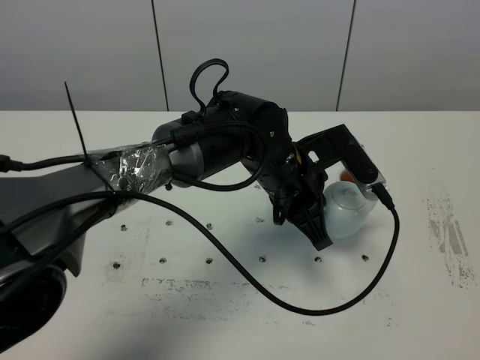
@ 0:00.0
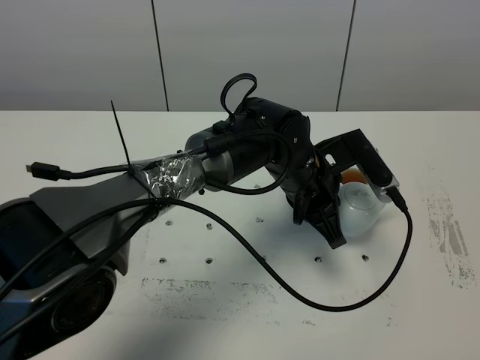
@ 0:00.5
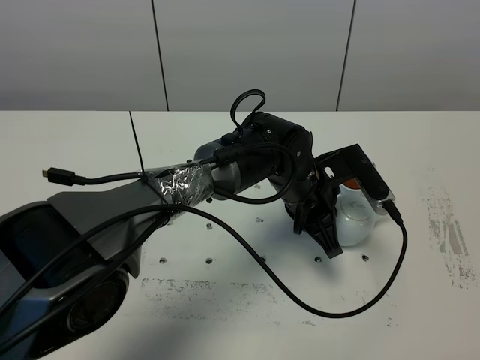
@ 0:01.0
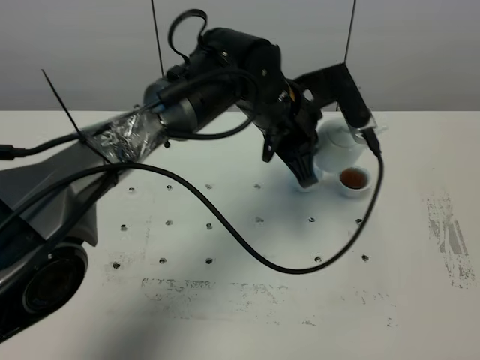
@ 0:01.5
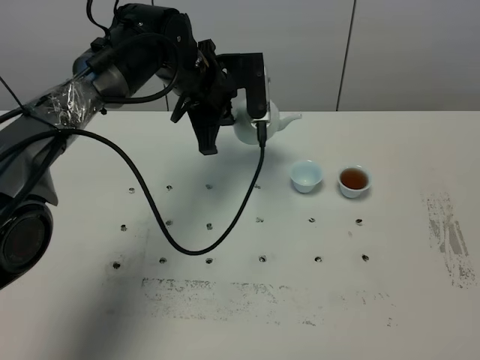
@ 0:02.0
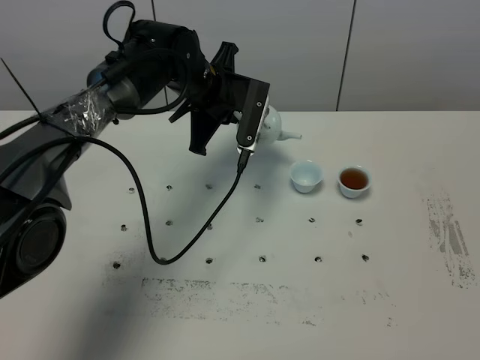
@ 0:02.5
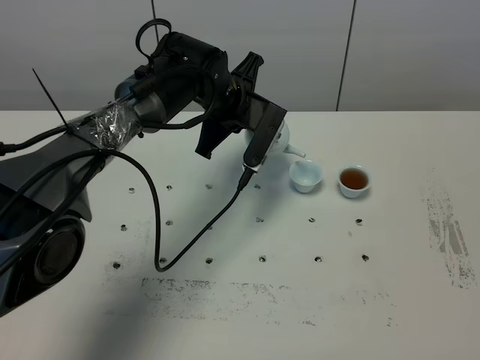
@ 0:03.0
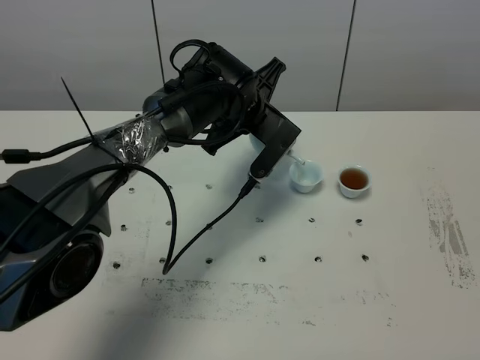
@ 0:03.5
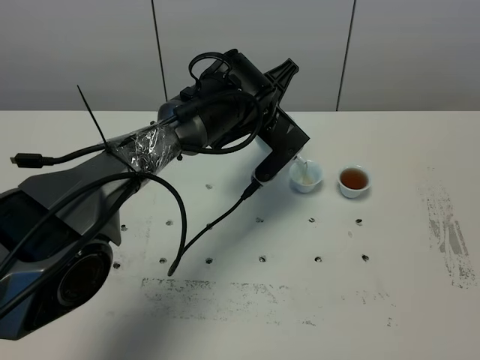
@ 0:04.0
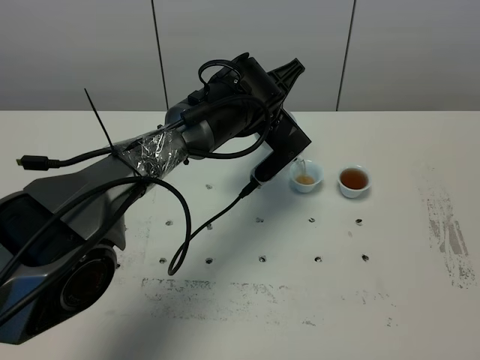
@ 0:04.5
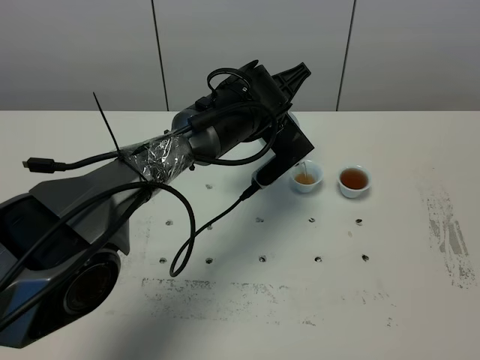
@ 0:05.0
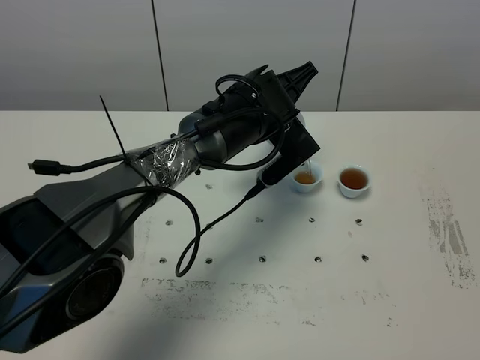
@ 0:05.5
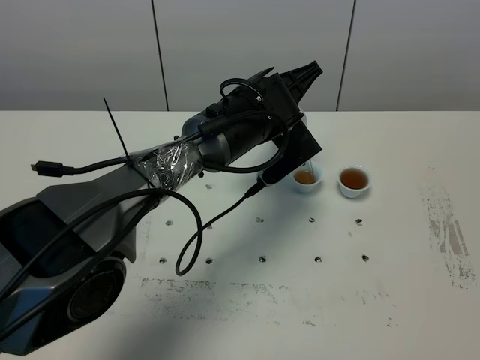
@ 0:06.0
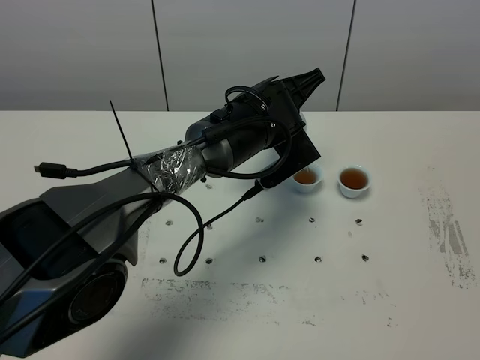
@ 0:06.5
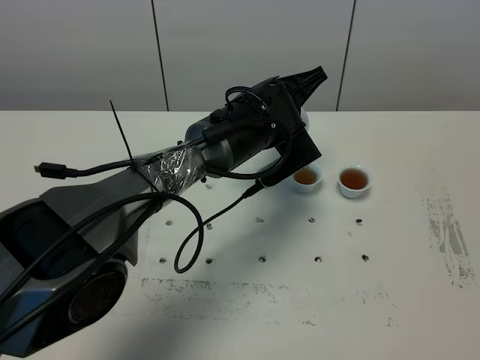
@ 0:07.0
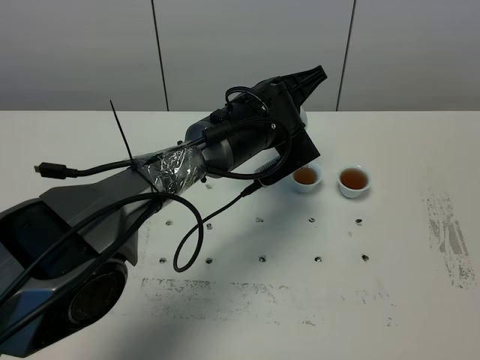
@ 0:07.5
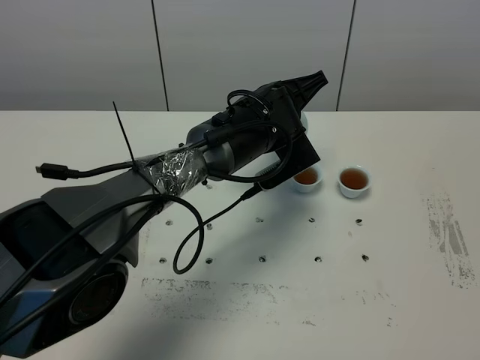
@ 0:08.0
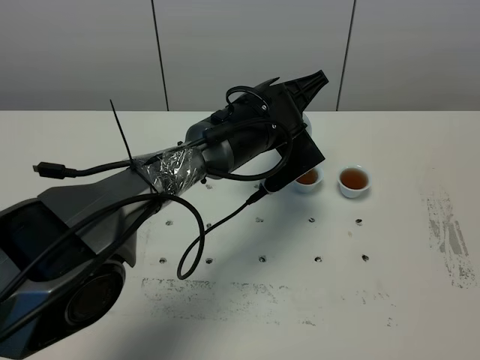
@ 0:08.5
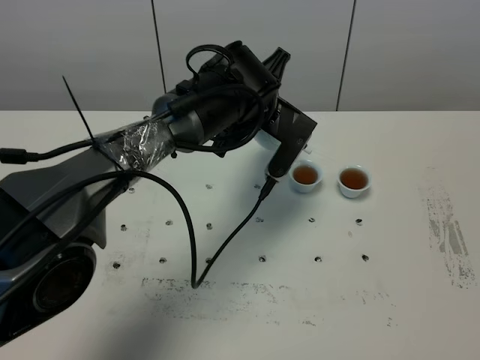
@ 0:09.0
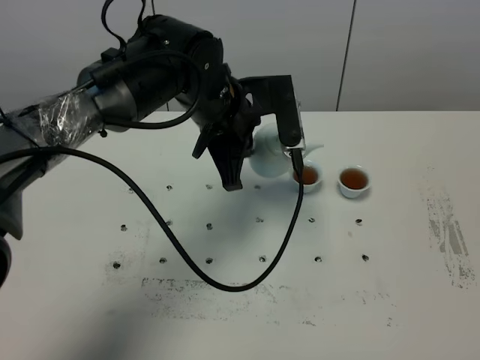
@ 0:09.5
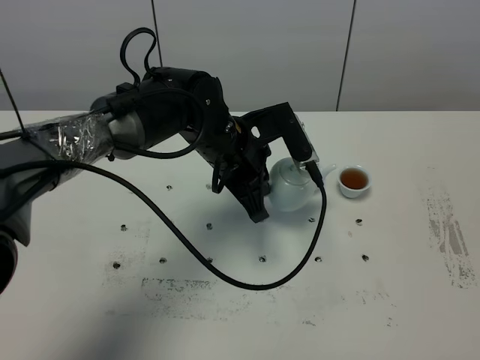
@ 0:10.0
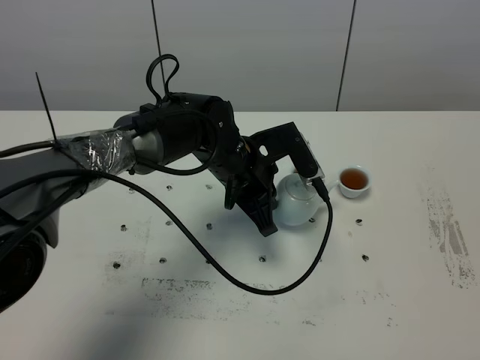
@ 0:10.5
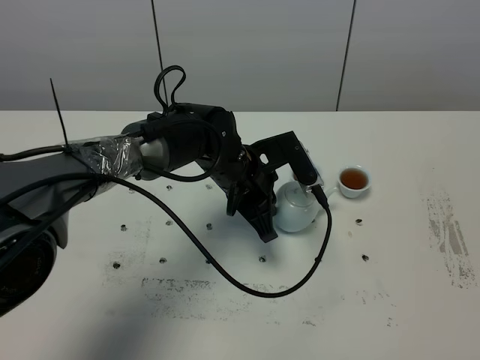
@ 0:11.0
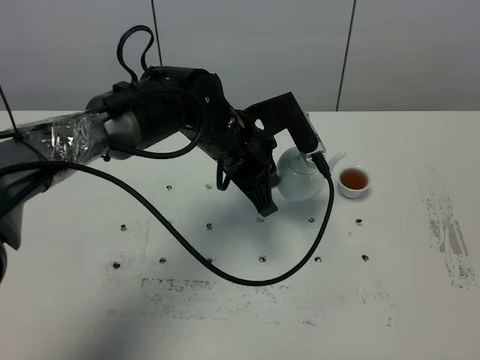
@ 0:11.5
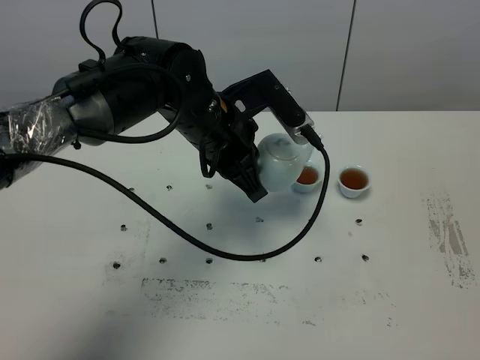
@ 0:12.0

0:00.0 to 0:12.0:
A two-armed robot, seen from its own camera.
Task of the whole recording: grasp the blue porcelain teapot and pour the tea into the two blue porcelain teacups one by one, put the blue porcelain teapot back in its original place.
Step, 0:00.0 to 0:09.0: Pour tea into the teacup with the left gripper.
0:00.0 to 0:02.0: The left gripper moves forward and to the left, some 15 cm.
0:02.0 to 0:04.0: The left gripper goes some 10 cm to the right.
0:06.0 to 0:08.0: The grippers stay close to where they were, moving slightly.
0:08.0 to 0:10.0: The left gripper moves to the left and backward, some 10 cm.
0:10.0 to 0:12.0: The left gripper shifts by about 5 cm.

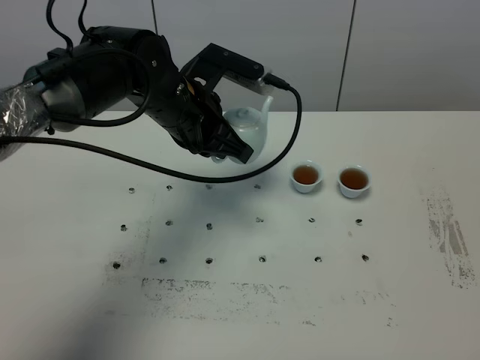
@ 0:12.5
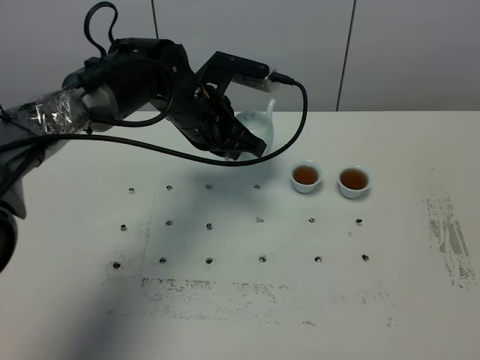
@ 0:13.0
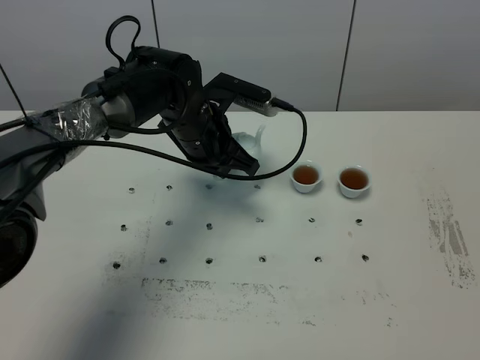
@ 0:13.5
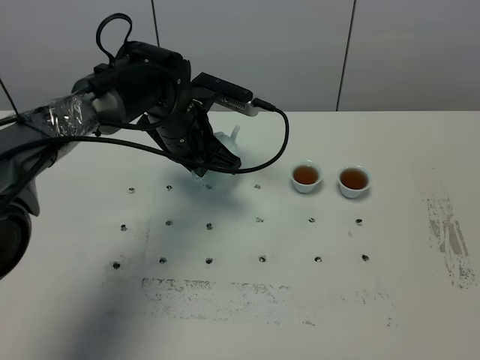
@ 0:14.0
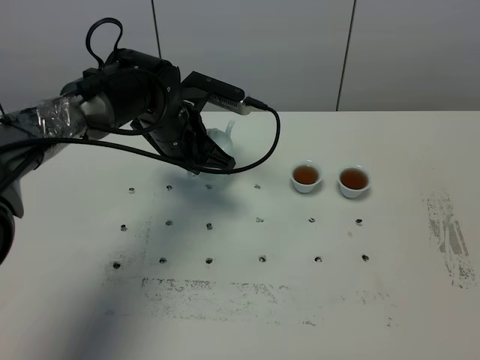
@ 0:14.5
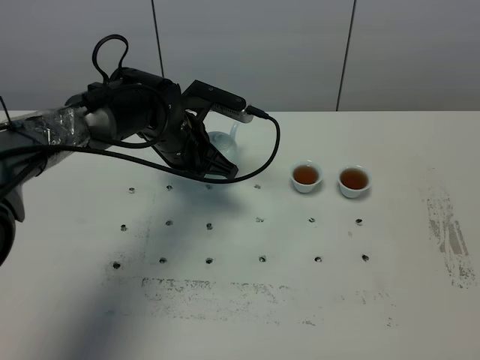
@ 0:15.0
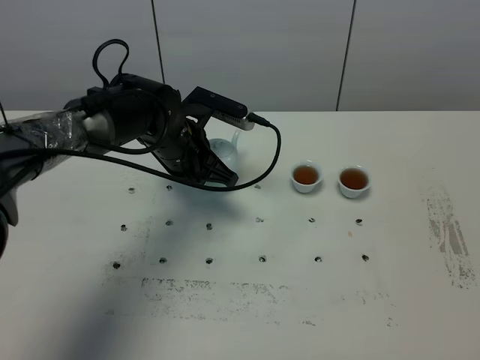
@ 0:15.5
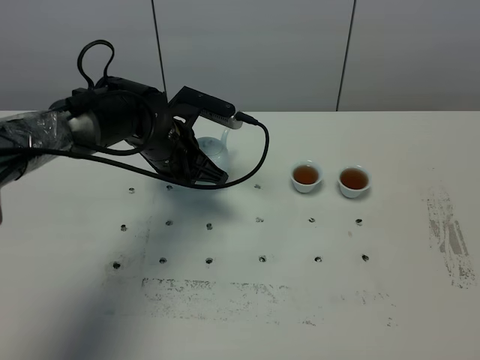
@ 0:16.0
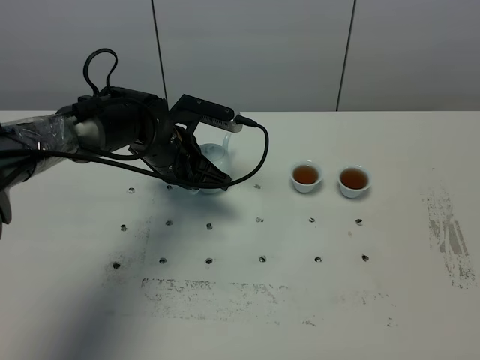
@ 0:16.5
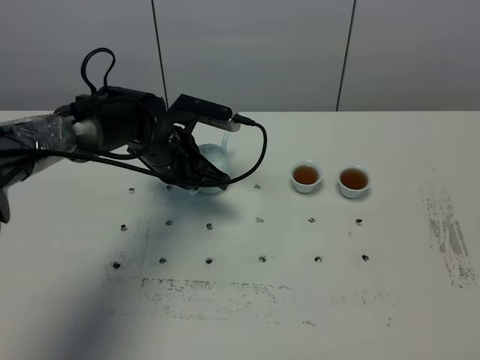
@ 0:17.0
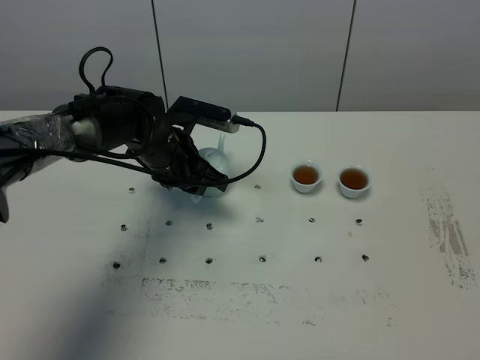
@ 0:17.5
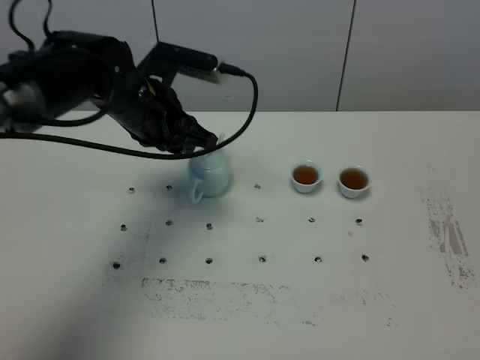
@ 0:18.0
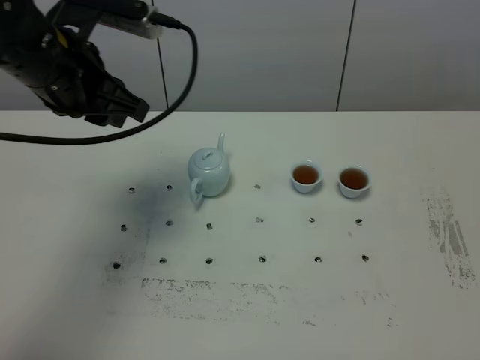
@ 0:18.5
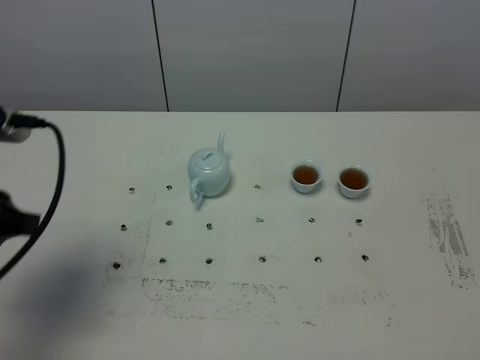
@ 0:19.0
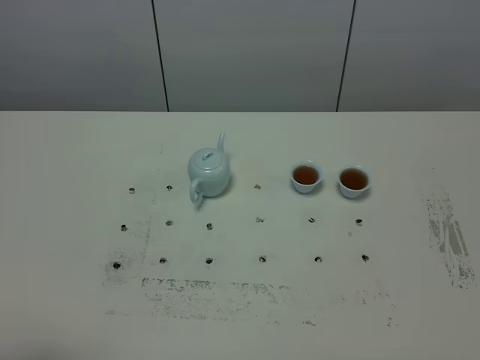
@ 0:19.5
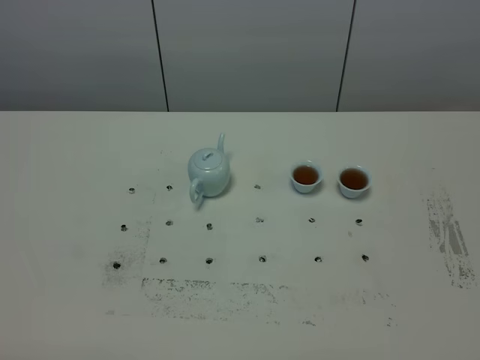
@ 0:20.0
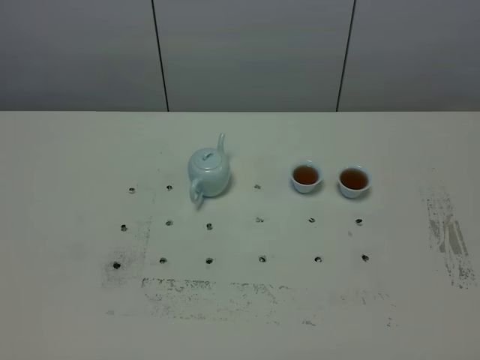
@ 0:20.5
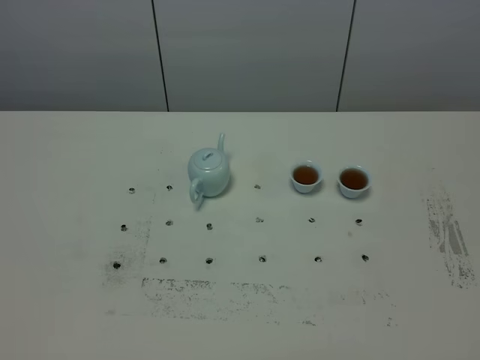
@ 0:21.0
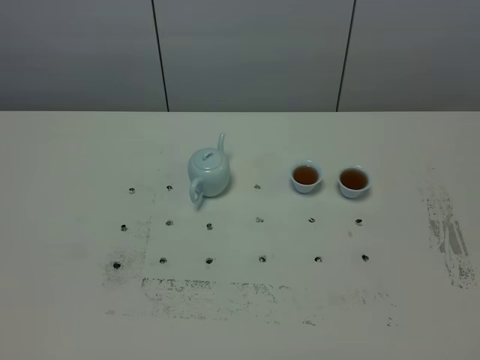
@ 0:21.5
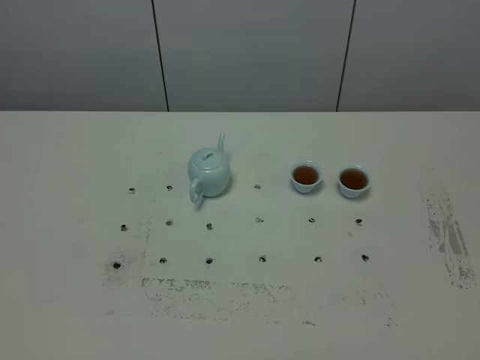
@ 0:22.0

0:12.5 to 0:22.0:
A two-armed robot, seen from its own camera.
Task of the whole recording: grasp the blue porcelain teapot and pour the tea into the two blue porcelain teacups one by one, put the blue porcelain teapot back in its original place.
0:12.5 to 0:14.5: The left gripper travels downward by roughly 5 cm.
0:14.5 to 0:16.5: The grippers move only a little.
0:16.5 to 0:18.0: The left gripper heads upward, covering some 10 cm, and opens its fingers.
0:18.0 to 0:20.0: The left gripper heads backward and to the left, covering approximately 40 cm.
